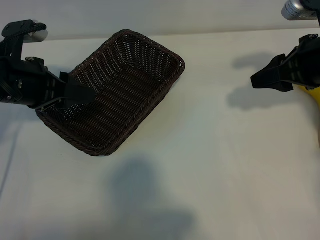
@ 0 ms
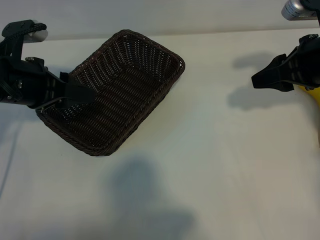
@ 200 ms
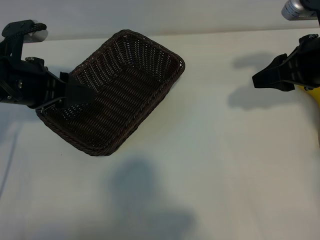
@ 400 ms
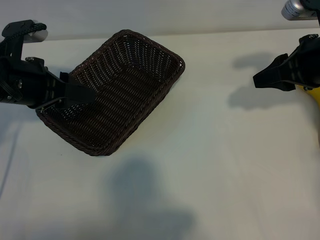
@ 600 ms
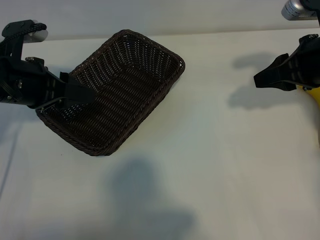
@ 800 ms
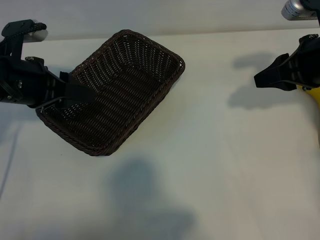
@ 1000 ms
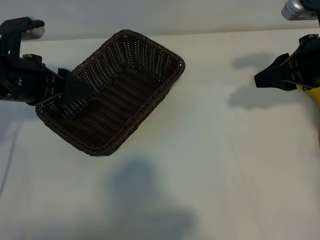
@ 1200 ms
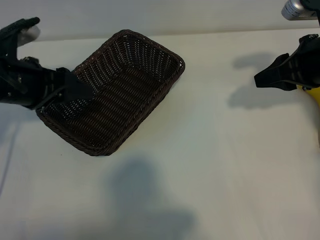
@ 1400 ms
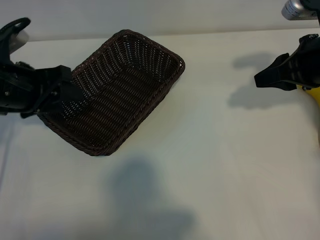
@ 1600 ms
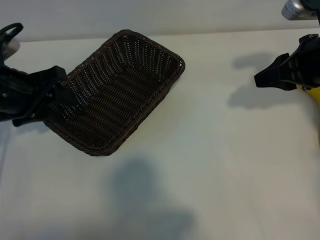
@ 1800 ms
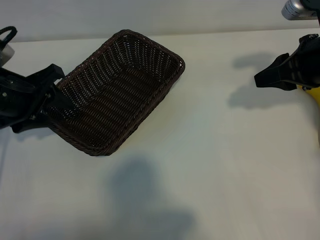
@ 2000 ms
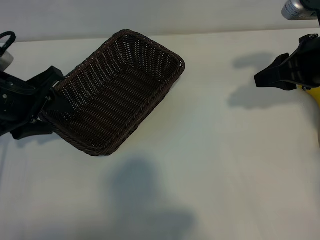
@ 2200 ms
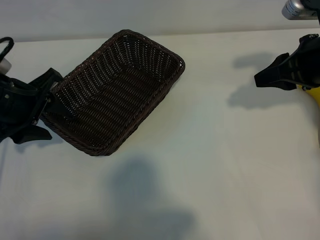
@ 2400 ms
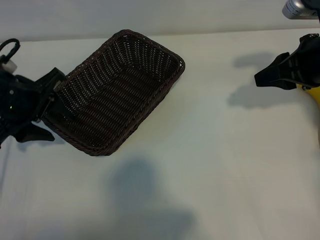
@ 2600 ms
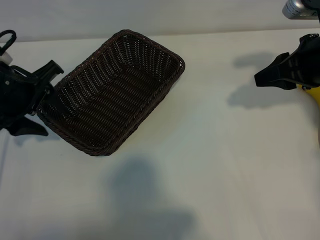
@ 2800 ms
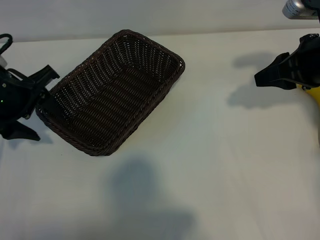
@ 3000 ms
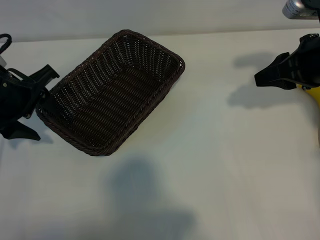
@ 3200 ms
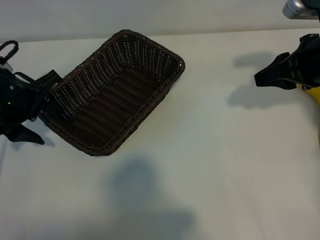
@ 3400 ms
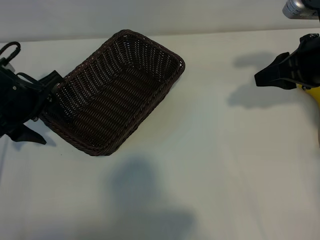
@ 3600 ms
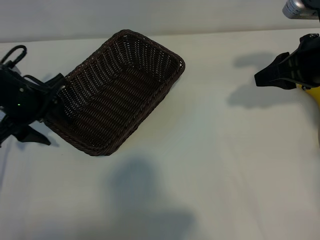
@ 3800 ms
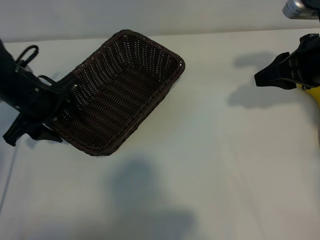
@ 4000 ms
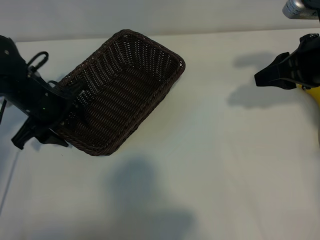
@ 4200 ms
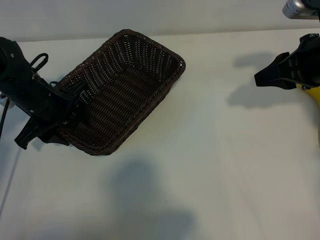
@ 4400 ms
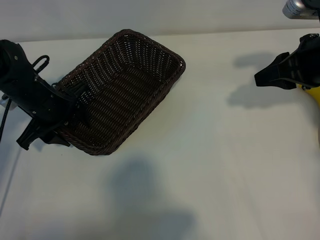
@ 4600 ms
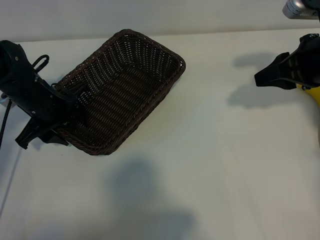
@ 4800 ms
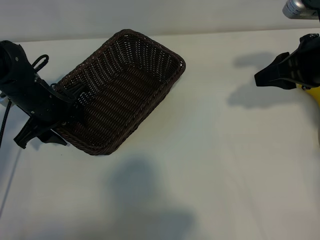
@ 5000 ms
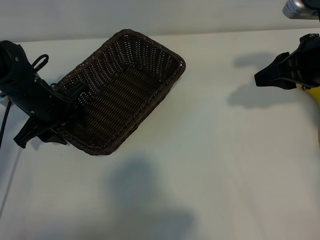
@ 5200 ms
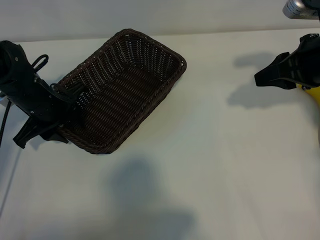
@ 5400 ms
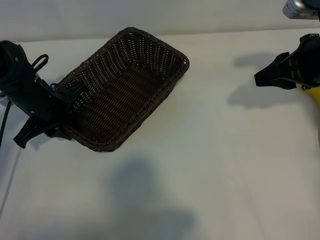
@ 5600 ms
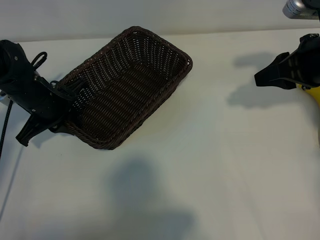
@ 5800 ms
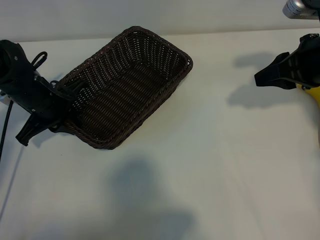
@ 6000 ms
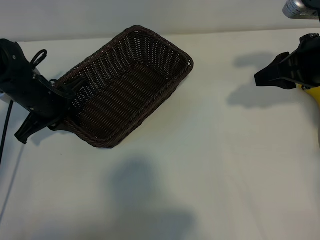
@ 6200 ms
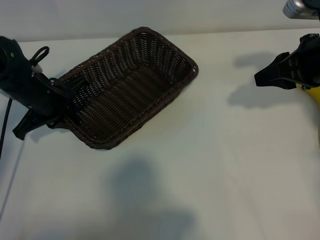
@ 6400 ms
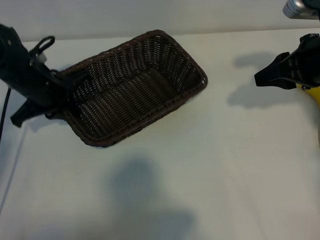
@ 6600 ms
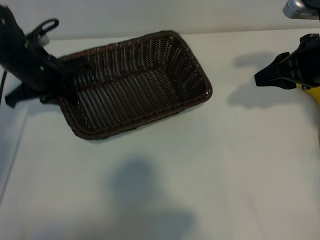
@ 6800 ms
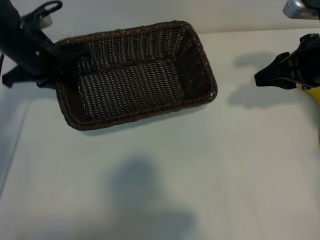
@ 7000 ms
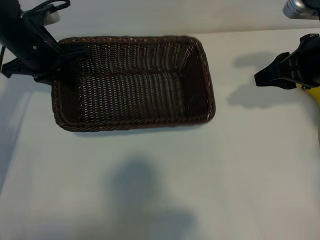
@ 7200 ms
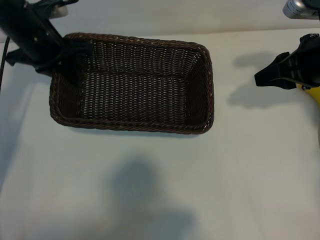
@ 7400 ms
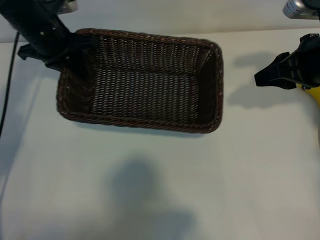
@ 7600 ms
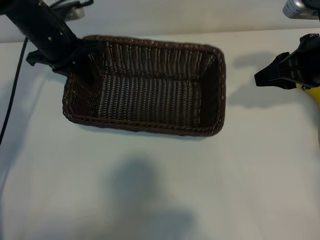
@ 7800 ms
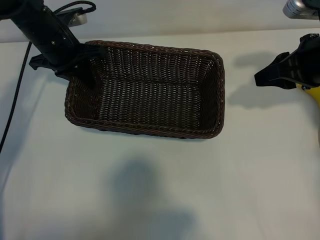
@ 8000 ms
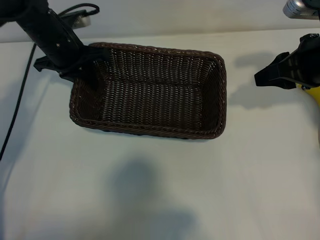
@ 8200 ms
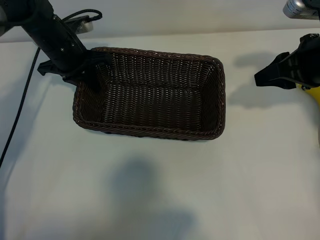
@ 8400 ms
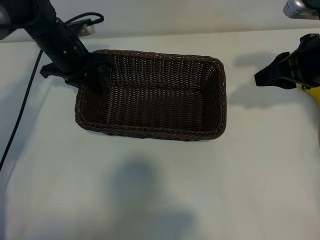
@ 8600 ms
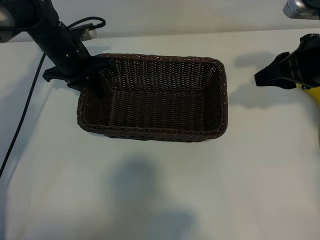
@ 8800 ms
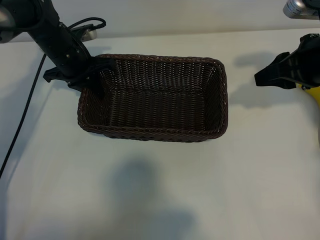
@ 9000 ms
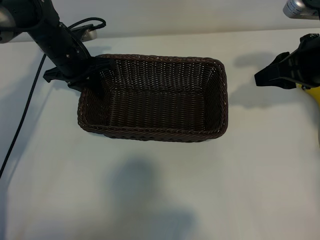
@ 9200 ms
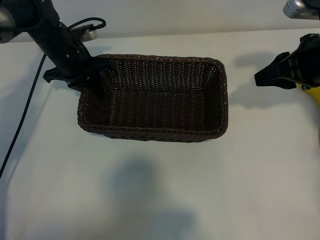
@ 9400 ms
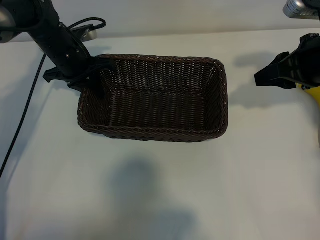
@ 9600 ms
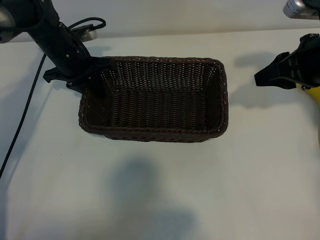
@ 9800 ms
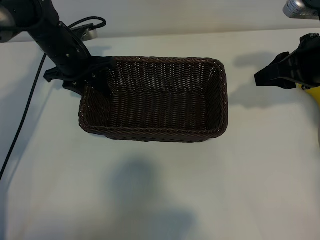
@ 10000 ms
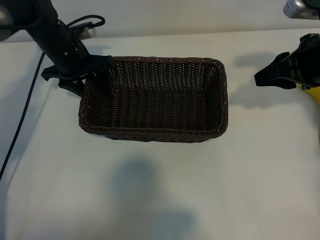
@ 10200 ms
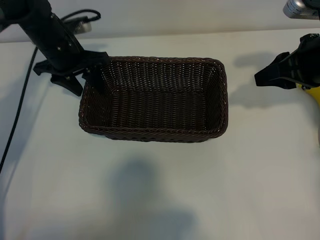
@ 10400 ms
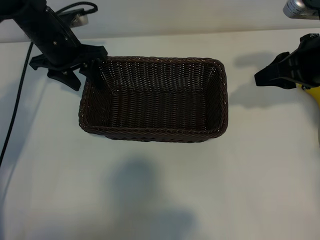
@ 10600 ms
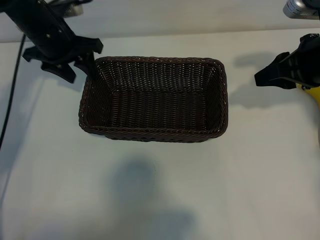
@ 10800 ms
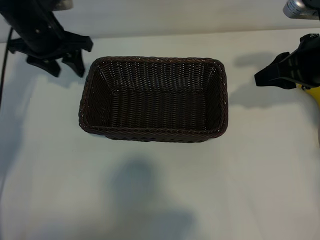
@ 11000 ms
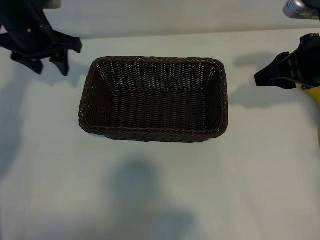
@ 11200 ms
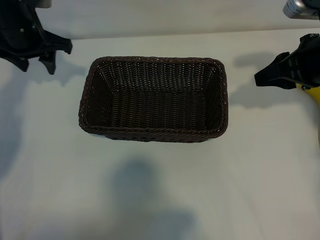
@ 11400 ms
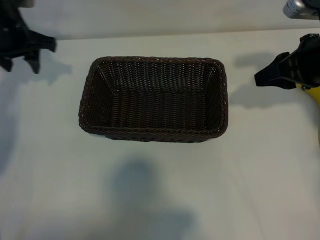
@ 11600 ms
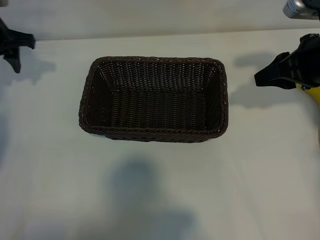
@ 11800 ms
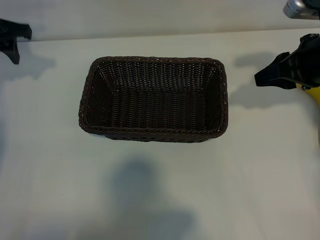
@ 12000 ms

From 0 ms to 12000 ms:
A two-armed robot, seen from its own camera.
Task of the whole recording: pick up the banana and put it into the basket.
Step, from 0 ms to 5800 ms: Grasp the basket with the left gripper.
Step, from 6000 ms to 10400 ms: Place the basket in the center of the table with the left gripper.

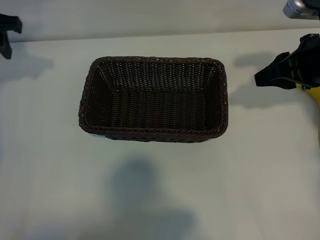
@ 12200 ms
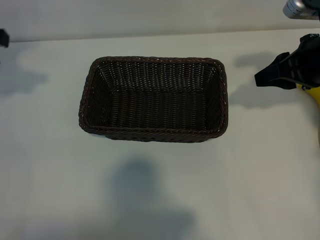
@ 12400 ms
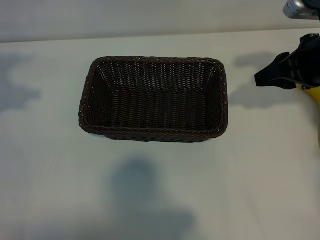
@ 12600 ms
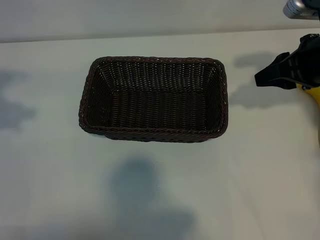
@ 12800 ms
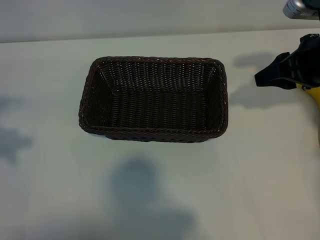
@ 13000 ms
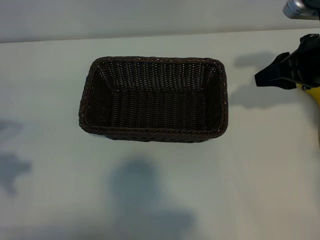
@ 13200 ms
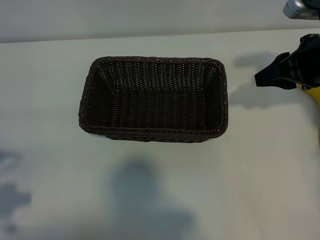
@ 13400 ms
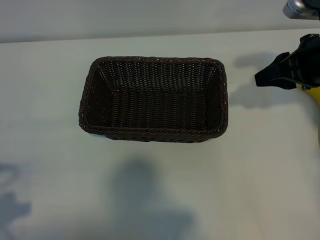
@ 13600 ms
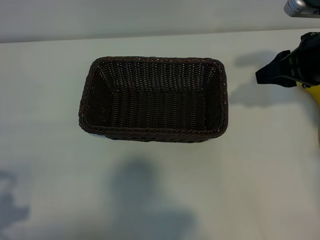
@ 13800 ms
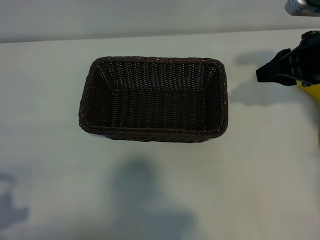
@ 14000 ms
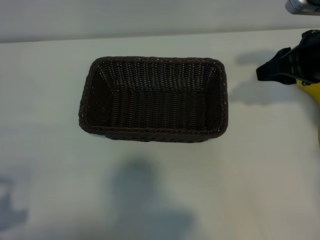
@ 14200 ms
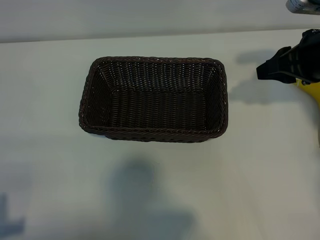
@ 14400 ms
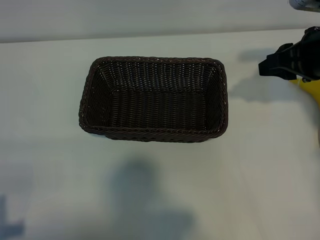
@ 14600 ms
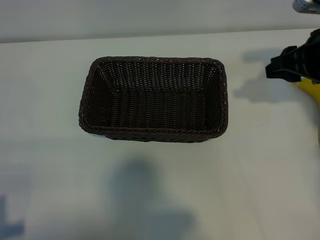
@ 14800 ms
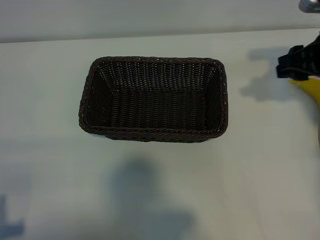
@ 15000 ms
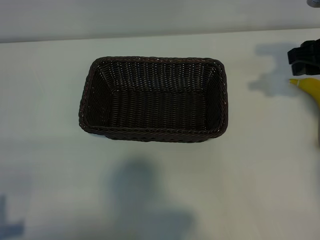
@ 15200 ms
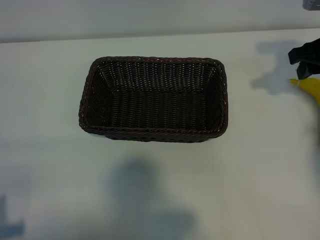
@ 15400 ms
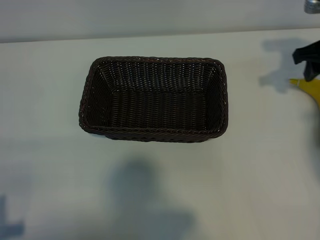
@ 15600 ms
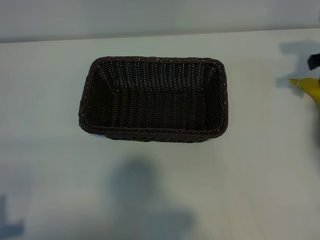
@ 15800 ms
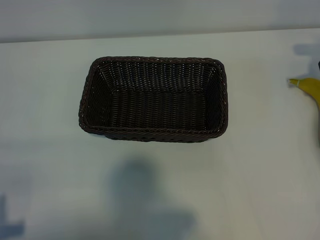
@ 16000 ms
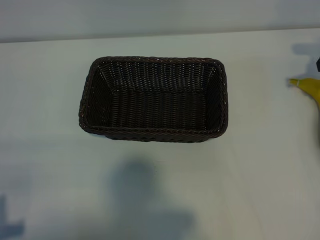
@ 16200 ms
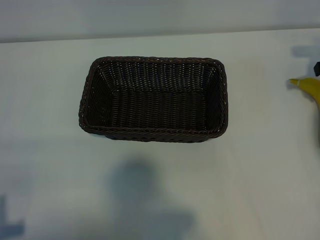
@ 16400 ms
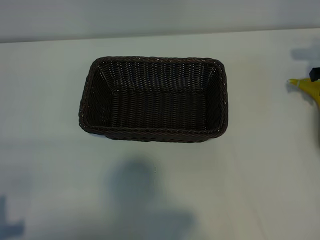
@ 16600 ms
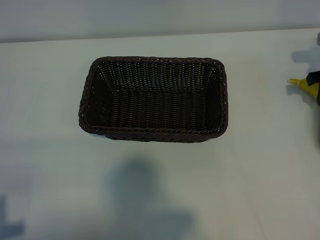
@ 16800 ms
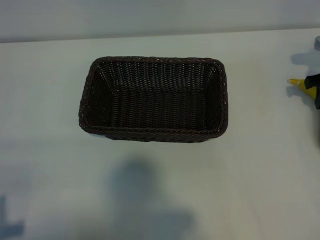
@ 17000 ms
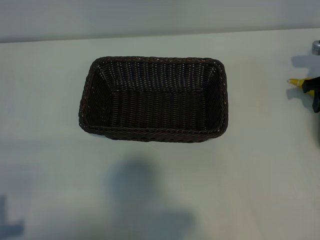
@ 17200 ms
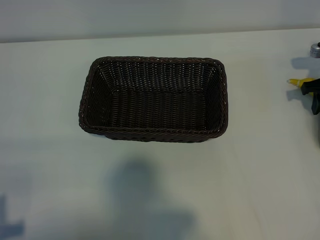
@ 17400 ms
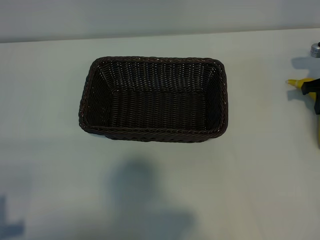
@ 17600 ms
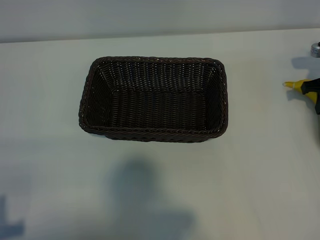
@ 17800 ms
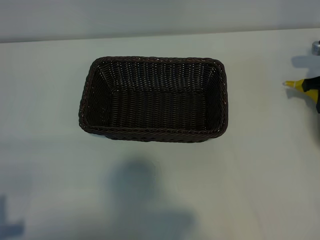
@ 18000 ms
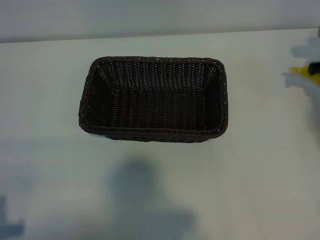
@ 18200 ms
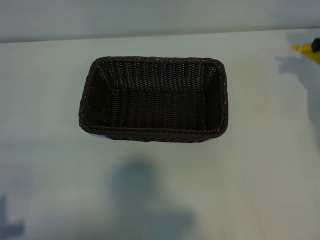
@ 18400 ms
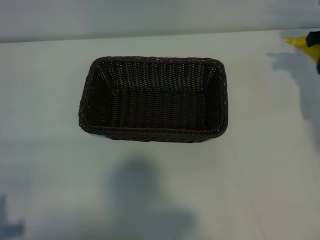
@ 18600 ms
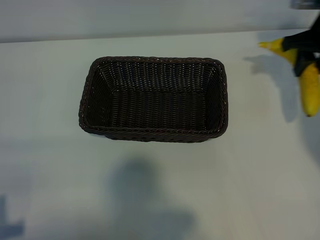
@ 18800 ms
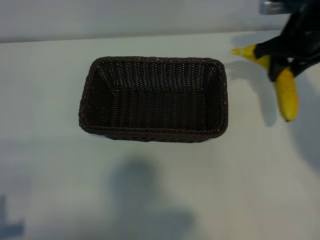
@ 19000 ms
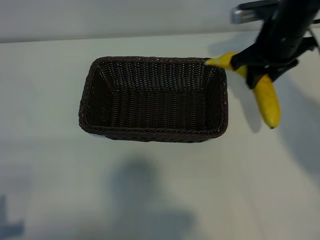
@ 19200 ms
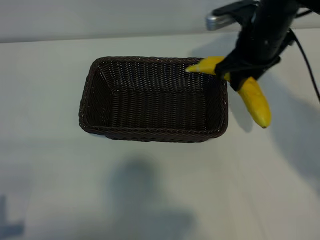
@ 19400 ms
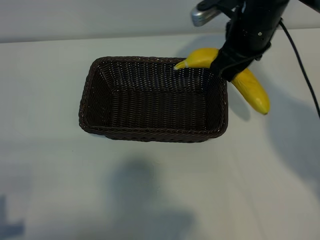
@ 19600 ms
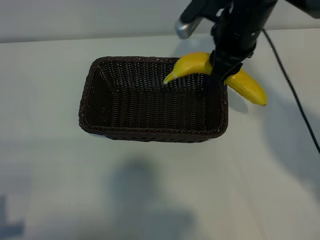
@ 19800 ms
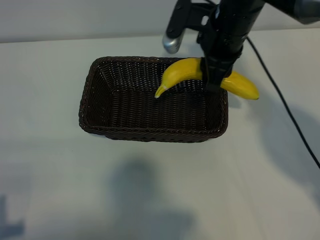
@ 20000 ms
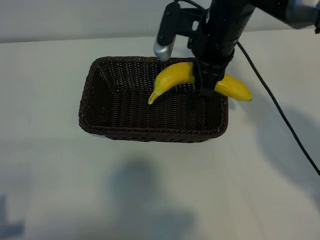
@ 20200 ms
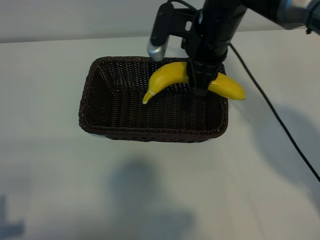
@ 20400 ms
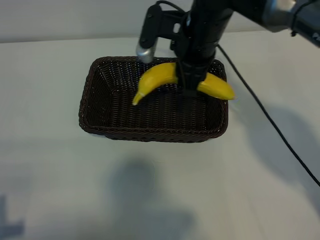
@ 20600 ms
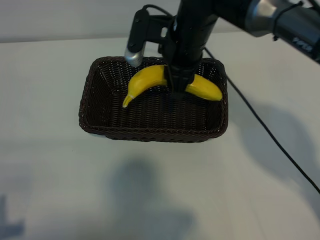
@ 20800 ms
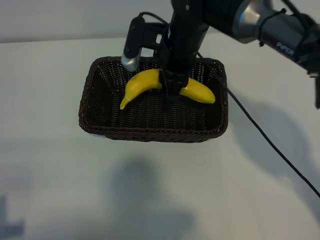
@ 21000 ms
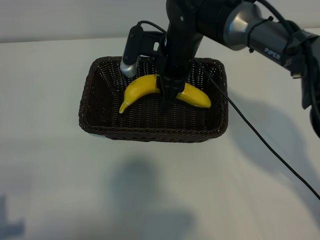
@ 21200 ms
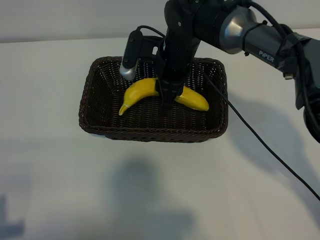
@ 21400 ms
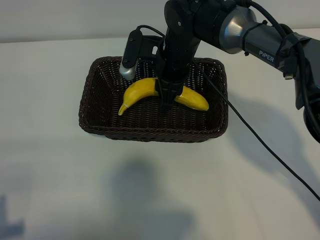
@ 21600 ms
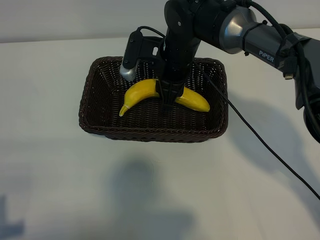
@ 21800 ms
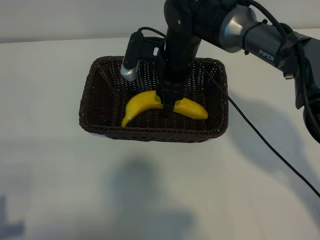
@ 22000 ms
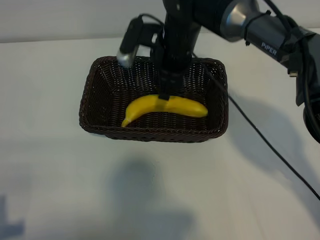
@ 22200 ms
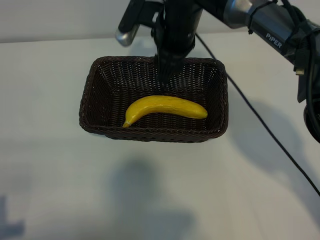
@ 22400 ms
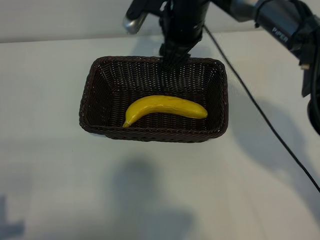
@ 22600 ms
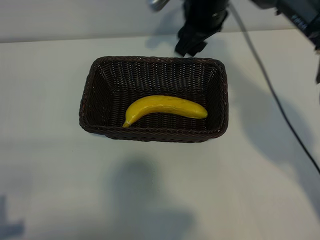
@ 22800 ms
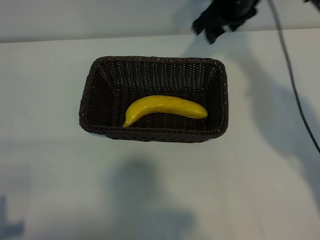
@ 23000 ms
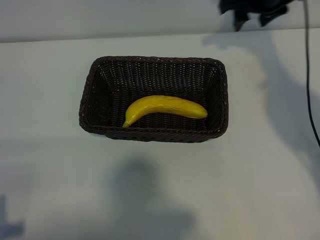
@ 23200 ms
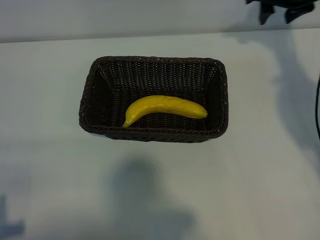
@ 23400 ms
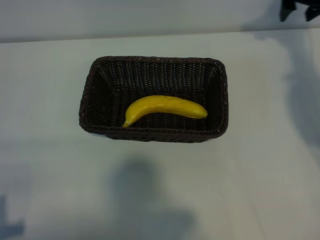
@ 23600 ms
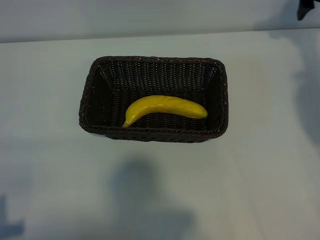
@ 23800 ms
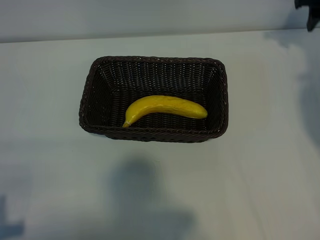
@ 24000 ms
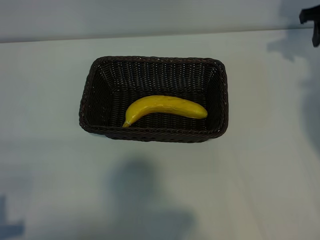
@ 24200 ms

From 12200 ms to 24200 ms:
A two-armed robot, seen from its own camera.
Task of the whole recording: pick up the banana and put it into the basket.
Step, from 12200 ms to 17800 ms: Grasp the banana with right gripper.
Step, from 18000 ms to 22600 ms: Place the banana in the basket with right gripper.
